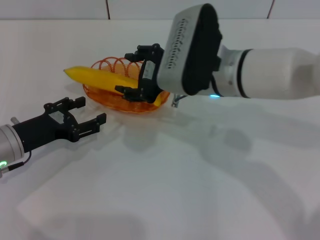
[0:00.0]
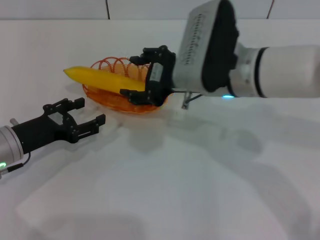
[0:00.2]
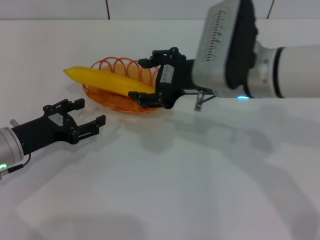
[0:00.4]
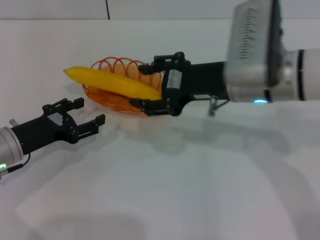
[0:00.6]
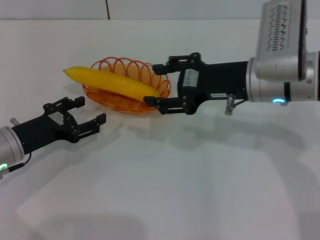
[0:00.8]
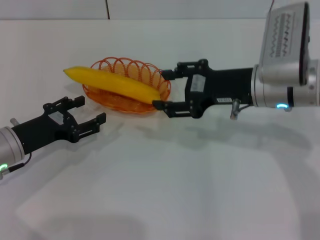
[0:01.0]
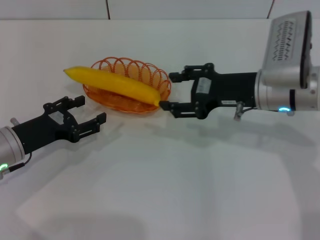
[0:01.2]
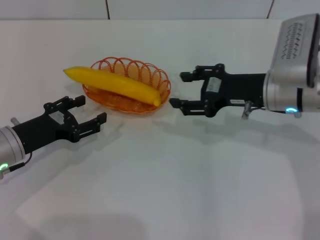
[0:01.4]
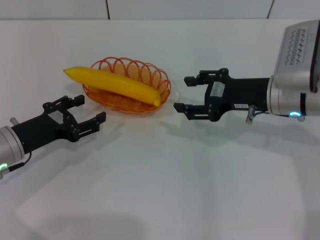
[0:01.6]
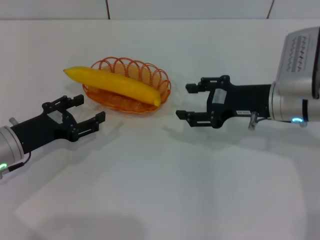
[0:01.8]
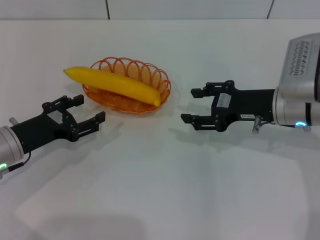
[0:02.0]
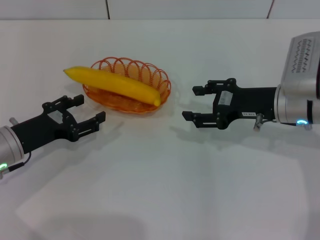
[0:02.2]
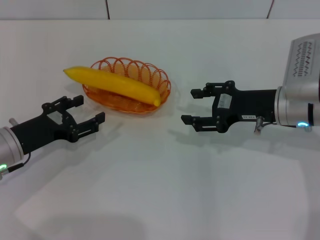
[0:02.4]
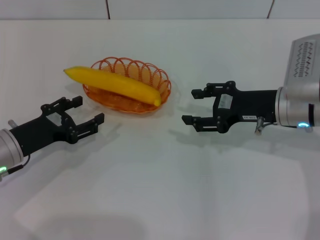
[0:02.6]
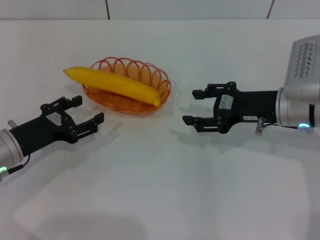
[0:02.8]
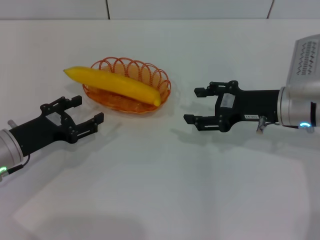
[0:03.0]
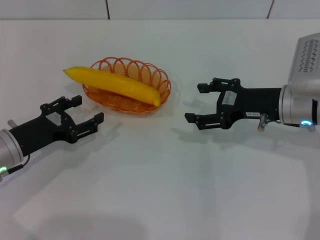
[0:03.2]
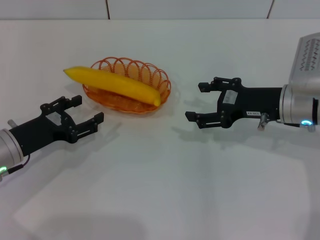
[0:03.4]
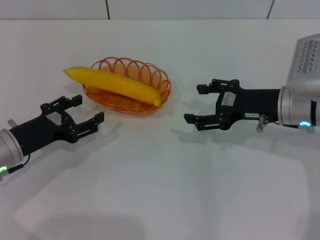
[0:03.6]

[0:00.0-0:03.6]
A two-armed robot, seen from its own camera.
0:00.0 to 0:01.8: The right gripper travels to the right by approximately 10 cm.
0:01.8 to 0:03.6: The right gripper opens up.
